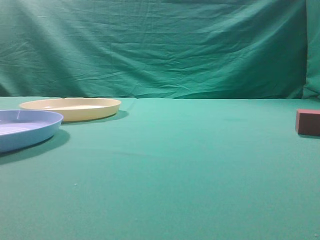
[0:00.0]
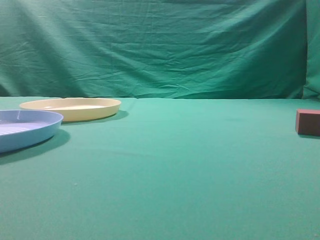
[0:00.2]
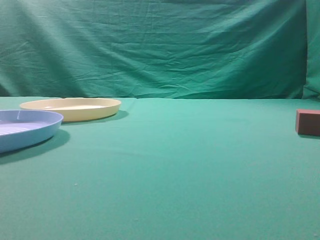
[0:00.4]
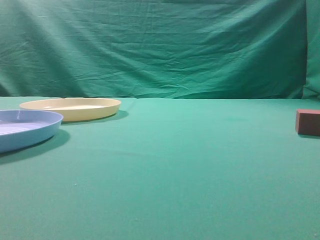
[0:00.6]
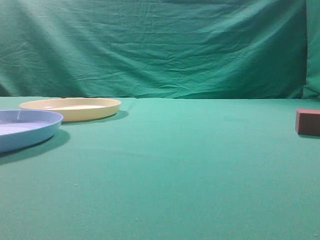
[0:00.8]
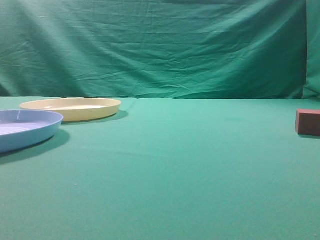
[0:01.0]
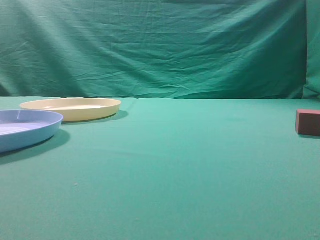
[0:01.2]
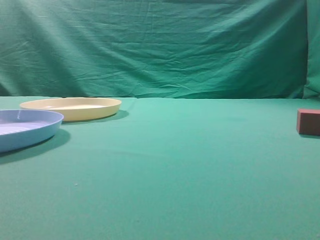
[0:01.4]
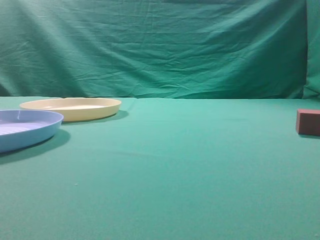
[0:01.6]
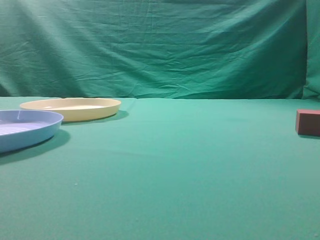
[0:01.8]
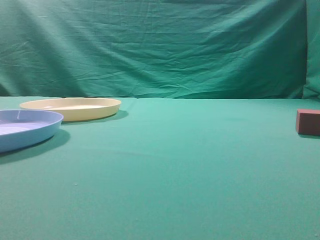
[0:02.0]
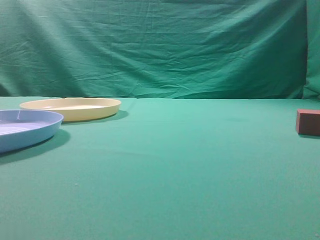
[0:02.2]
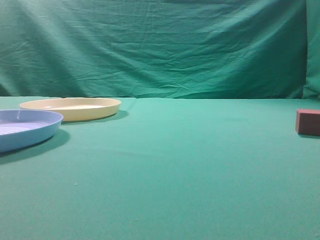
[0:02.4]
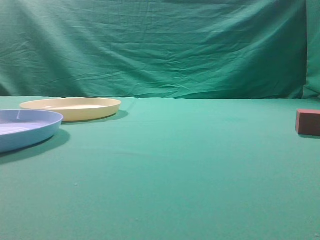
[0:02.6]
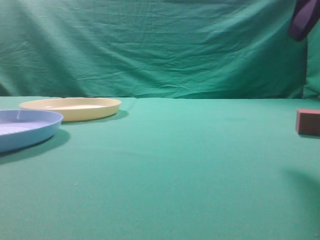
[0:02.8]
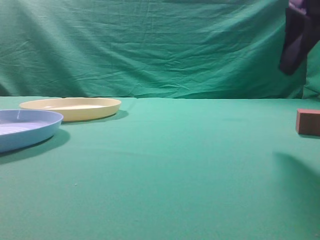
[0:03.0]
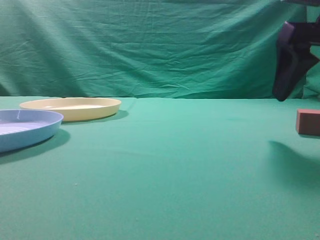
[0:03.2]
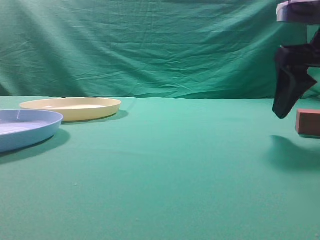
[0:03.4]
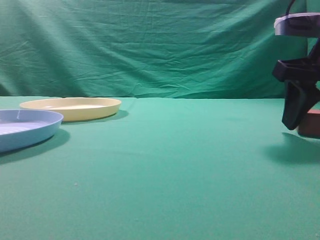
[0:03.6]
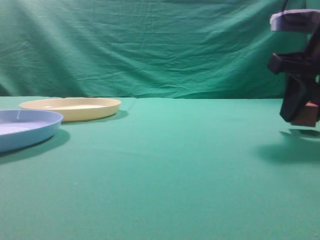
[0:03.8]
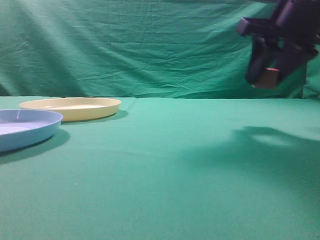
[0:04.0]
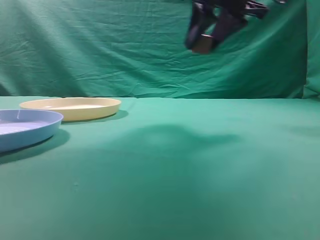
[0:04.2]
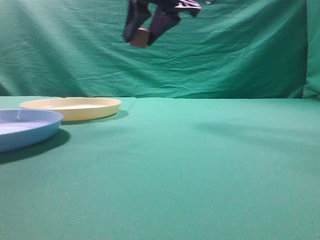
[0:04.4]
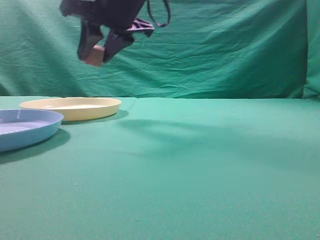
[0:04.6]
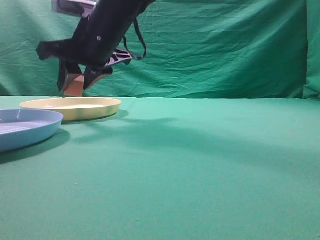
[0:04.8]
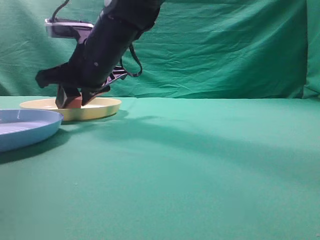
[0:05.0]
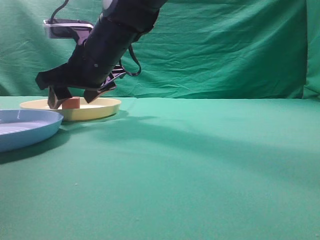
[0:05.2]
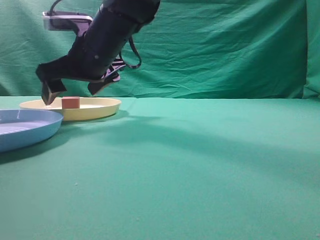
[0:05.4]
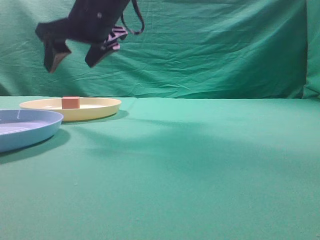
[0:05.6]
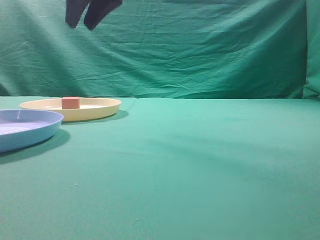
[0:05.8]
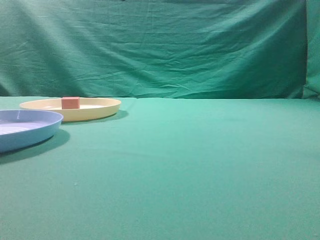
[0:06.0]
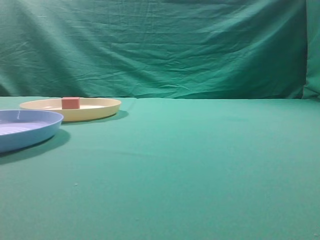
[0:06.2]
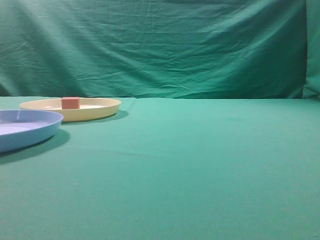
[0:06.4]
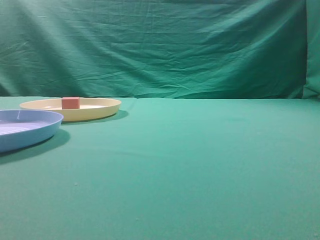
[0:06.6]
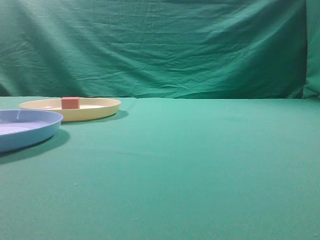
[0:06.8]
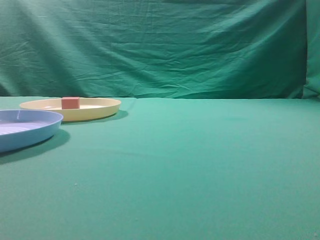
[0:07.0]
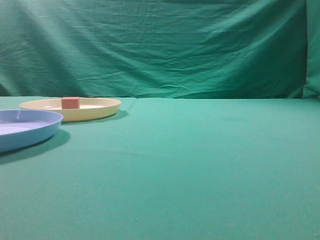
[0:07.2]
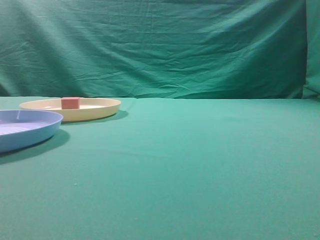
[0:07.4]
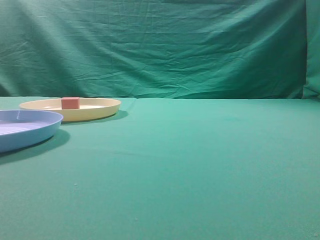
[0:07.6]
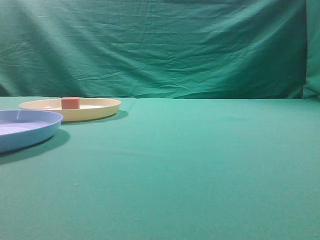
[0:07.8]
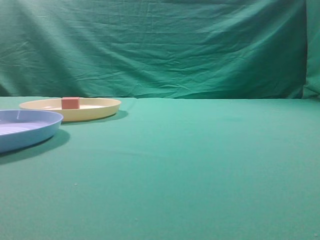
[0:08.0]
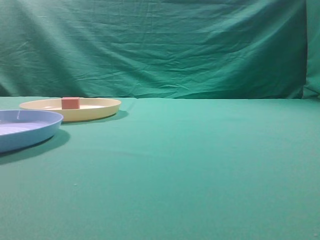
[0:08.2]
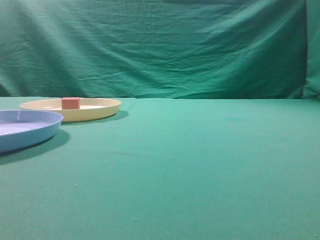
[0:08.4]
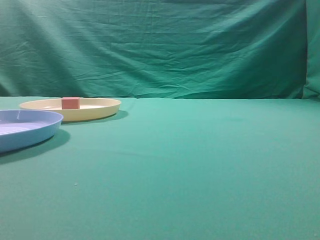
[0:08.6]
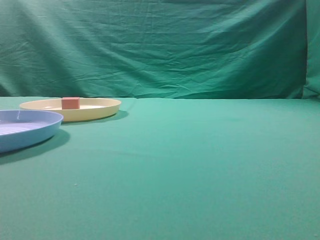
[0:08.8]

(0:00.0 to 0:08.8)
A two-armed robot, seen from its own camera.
Task of the whole recording: pick up the cube block from the table and put it on the plate.
Step, 0:00.0 - 0:03.8: Grasp the small cube on the table.
Step, 0:04.0 - 0:05.6: Place it into the yellow plate.
0:01.4 - 0:03.0: The right gripper goes roughly 20 cm forward, and opens up.
0:03.0 - 0:04.4: The right gripper is displaced to the left and forward by some 25 cm, and closes up.
0:04.4 - 0:05.8: The right gripper travels to the left by approximately 5 cm, moves approximately 10 cm downward and comes back, and opens, then closes once more.
